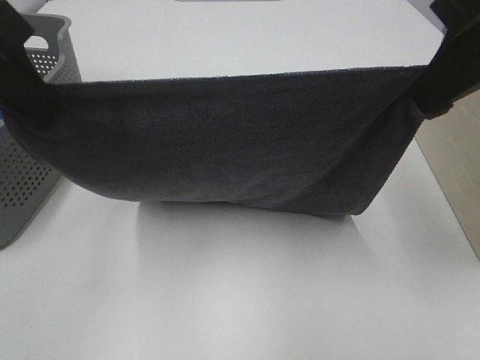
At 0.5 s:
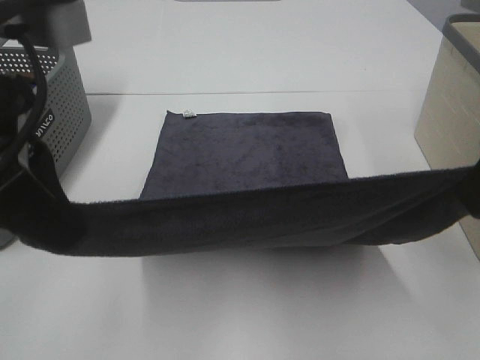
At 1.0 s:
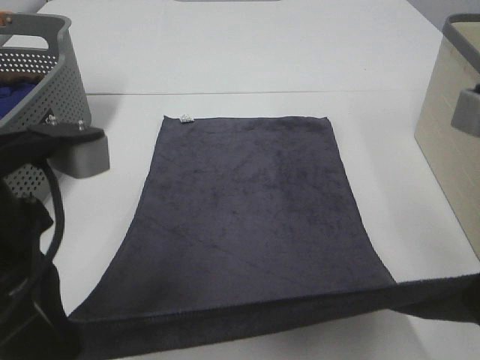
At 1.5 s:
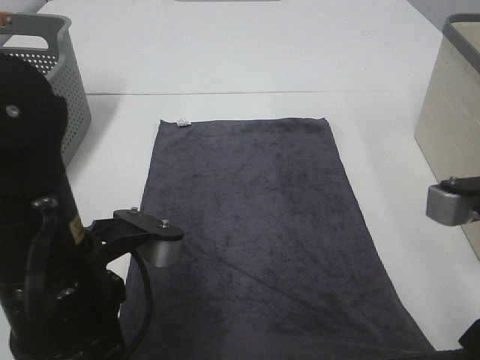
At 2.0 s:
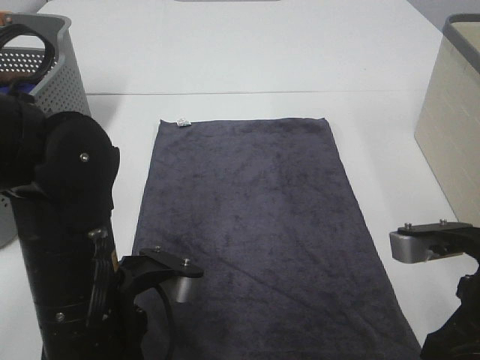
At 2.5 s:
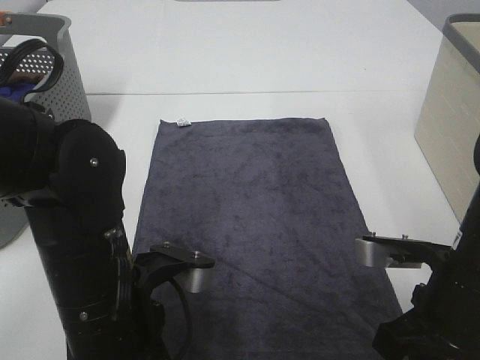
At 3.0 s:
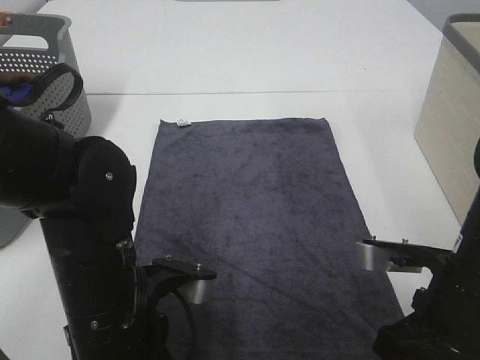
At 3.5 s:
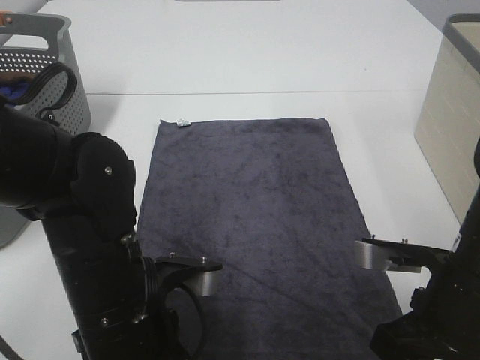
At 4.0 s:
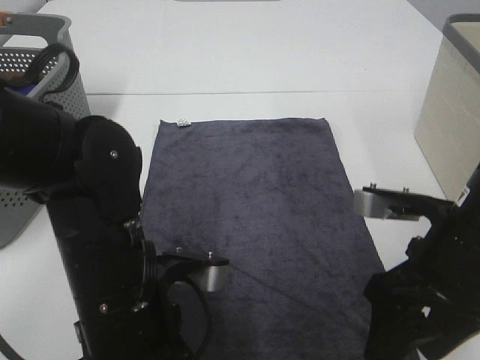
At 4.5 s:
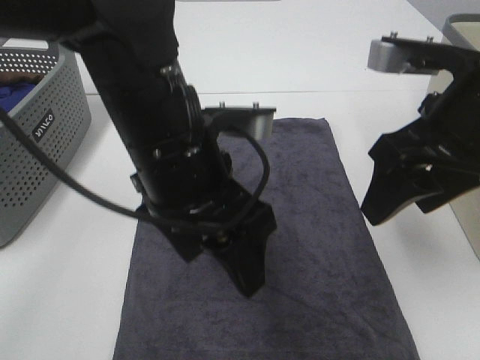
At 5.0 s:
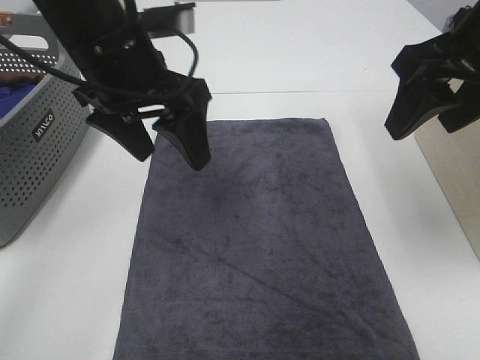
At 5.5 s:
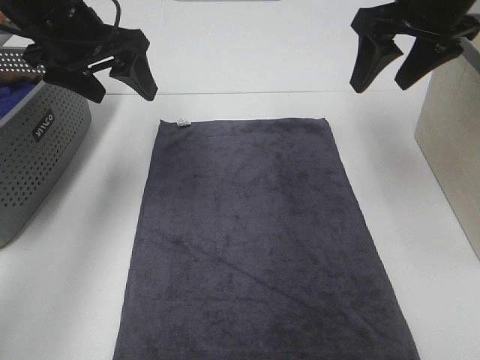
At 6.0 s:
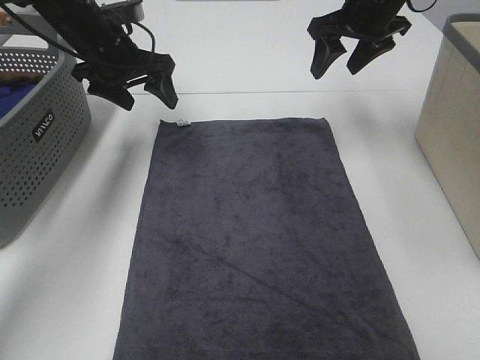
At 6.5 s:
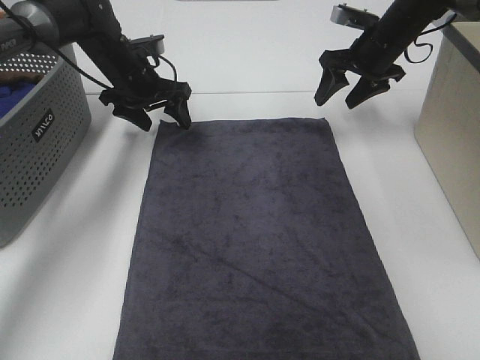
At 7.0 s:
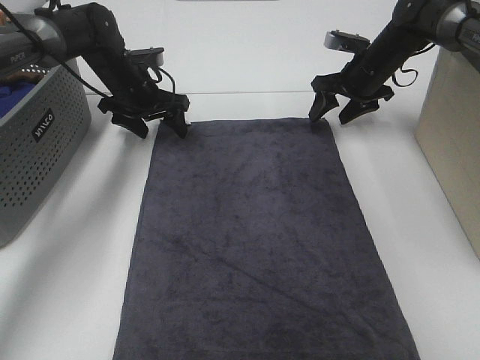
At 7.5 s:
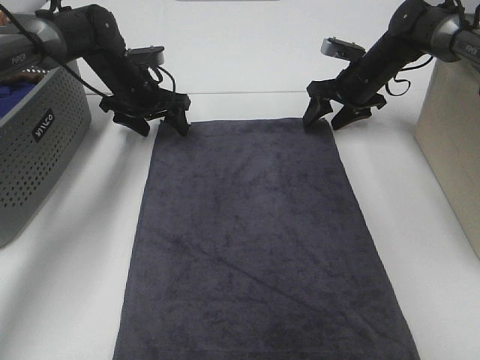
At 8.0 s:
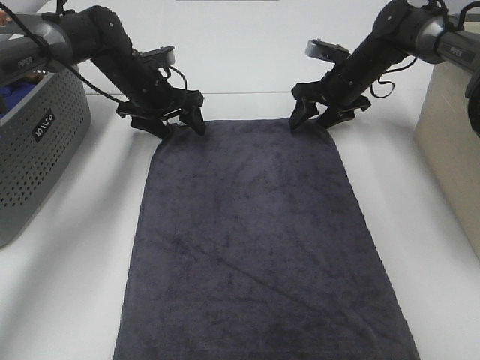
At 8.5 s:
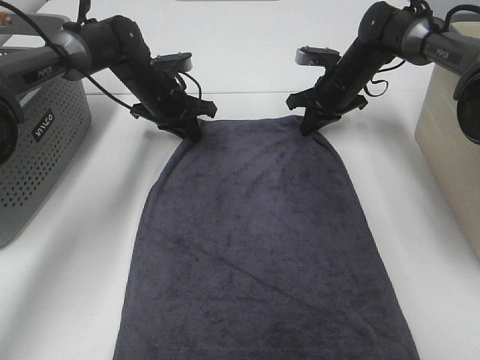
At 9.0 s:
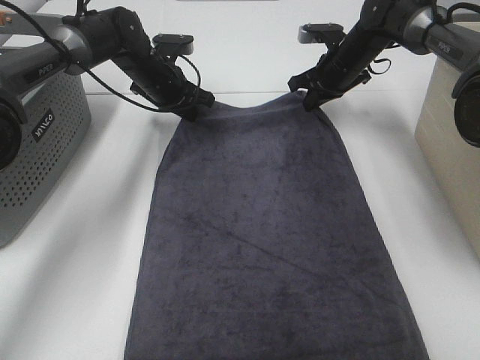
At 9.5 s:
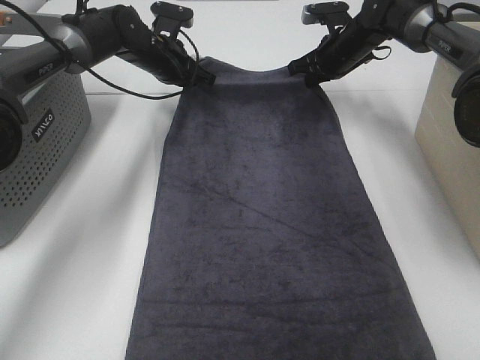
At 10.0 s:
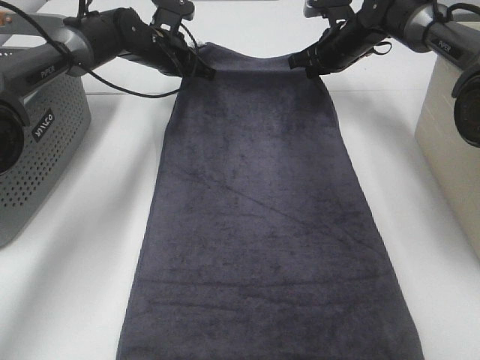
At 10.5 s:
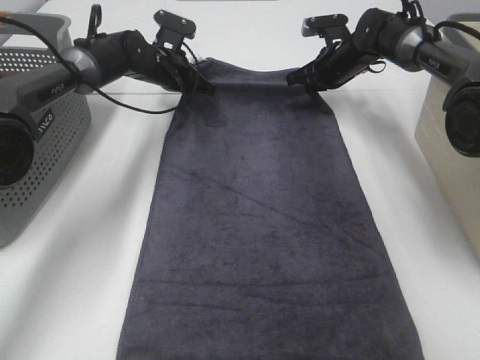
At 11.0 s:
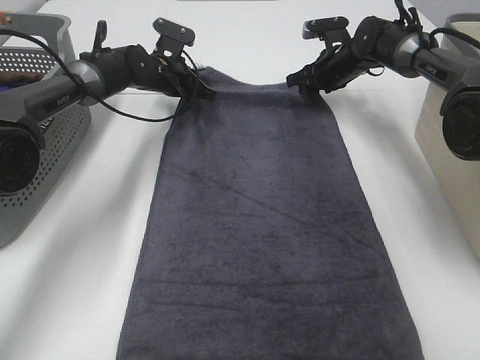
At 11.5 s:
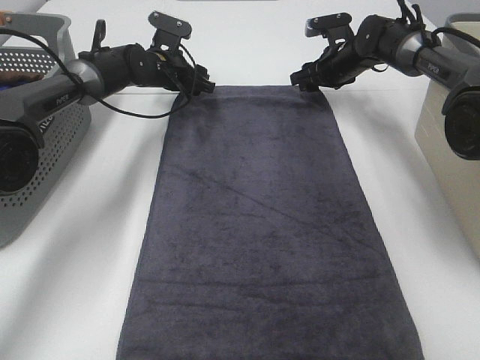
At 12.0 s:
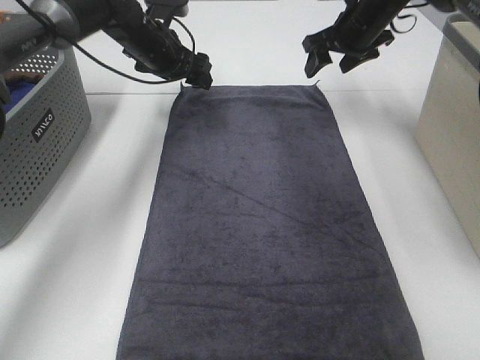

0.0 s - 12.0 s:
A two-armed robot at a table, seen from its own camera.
Task of the whole recording: Remove the towel and place it.
Step, 0.0 s - 5.5 s: Left hand:adjust the gray towel.
Step, 0.0 s - 5.5 s: Right hand:adjust the gray towel.
0.0 s - 2.0 s: The right gripper heads downward, covering about 20 cm; the left gripper travels downward and to the right by about 20 cm.
2.0 s - 4.0 s: The left gripper opens its fingers, while the right gripper opens up.
4.0 s - 6.0 s: Both grippers travel together forward, some 30 cm.
6.0 s - 8.0 s: The left gripper moves downward, approximately 10 cm; the right gripper travels downward by approximately 15 cm.
8.0 s - 10.0 s: The right gripper shifts by about 5 cm, and closes up, while the left gripper moves approximately 5 cm, and closes.
10.0 s - 12.0 s: The left gripper moves some 5 cm, and opens up, while the right gripper moves upward, approximately 5 cm, and opens up.

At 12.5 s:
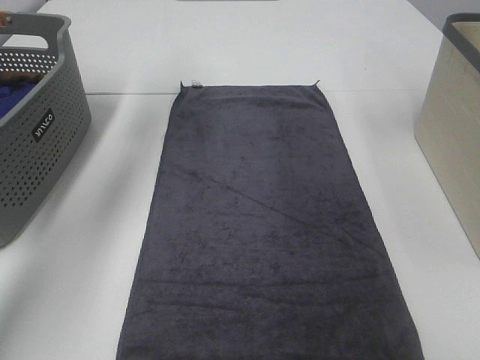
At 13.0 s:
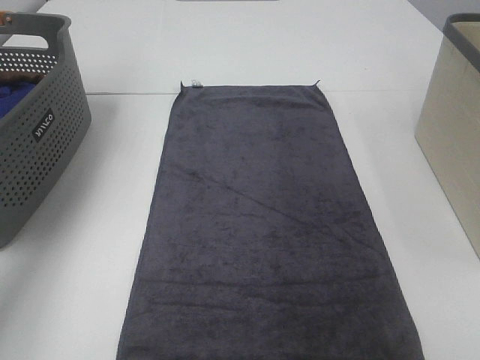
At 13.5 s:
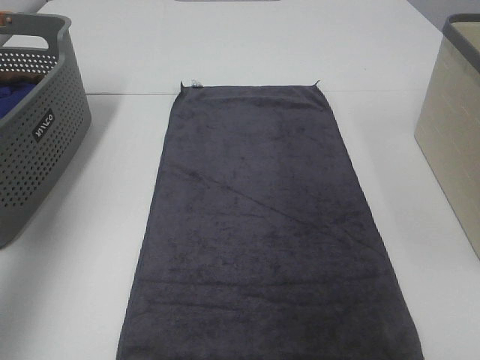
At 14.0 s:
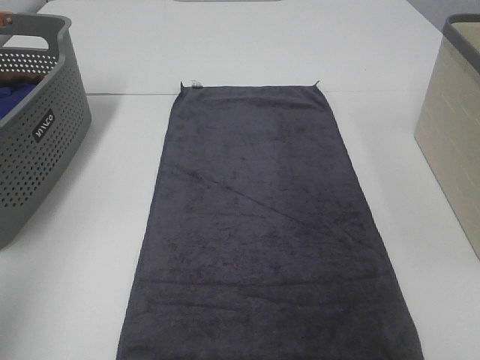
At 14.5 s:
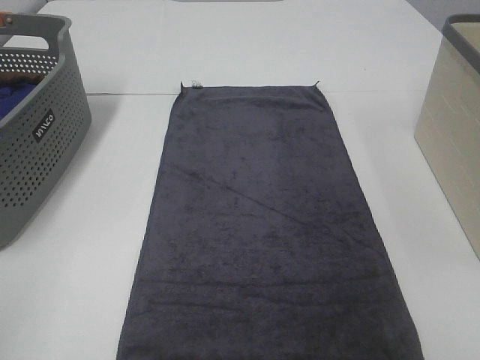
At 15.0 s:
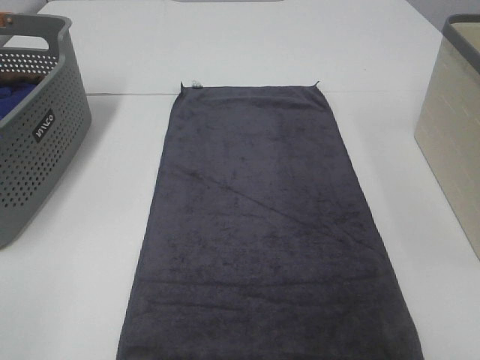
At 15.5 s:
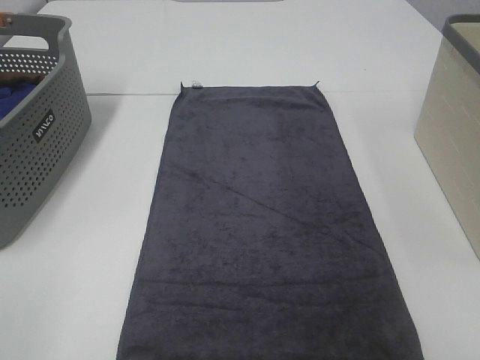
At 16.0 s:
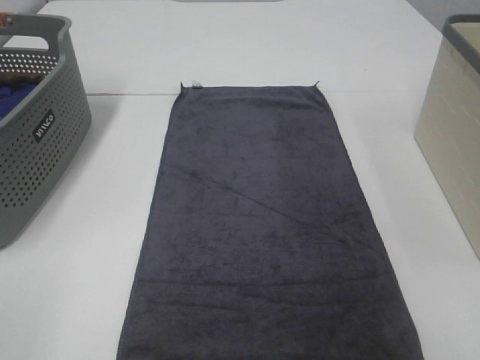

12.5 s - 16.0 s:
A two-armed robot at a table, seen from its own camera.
Task of the whole recording: Remove the towel and place it.
12.5 s - 14.5 s: The left gripper shifts some 50 cm backward.

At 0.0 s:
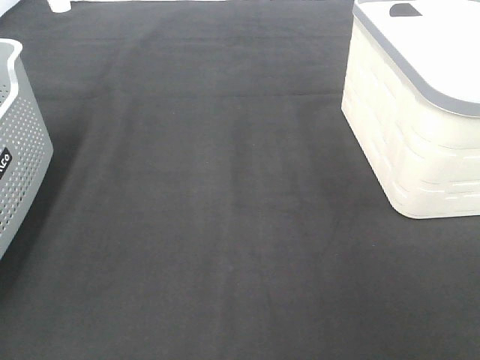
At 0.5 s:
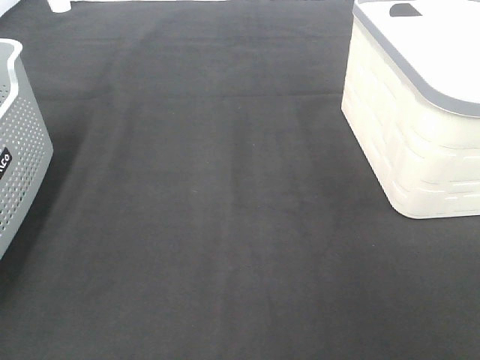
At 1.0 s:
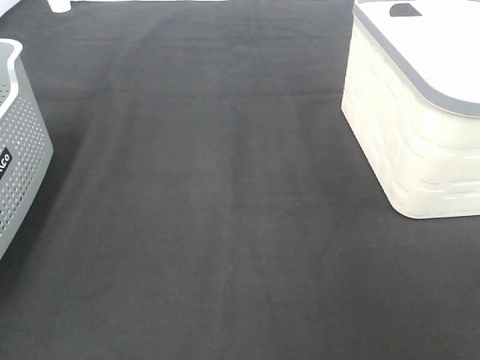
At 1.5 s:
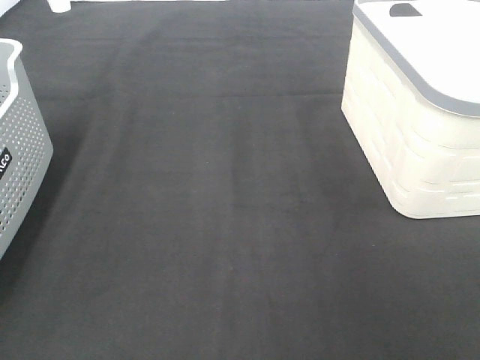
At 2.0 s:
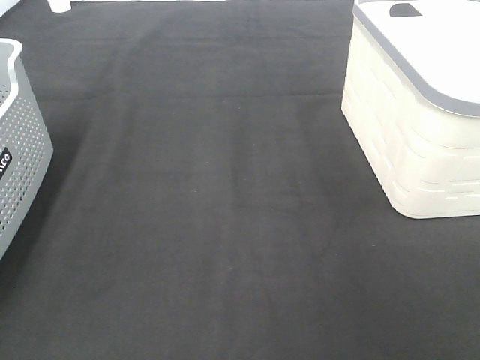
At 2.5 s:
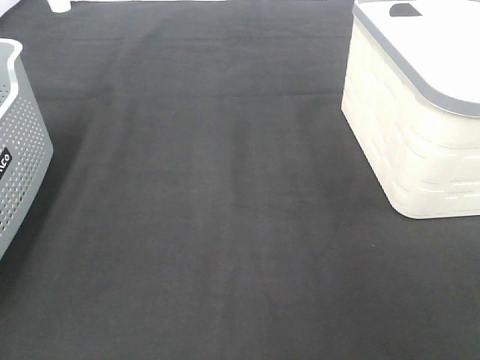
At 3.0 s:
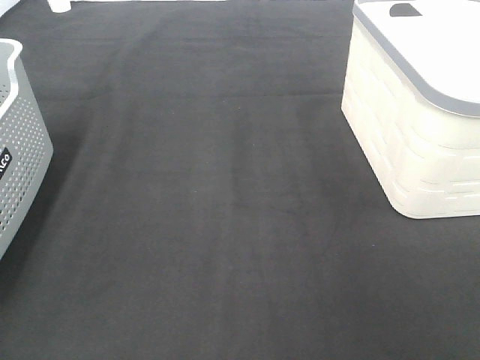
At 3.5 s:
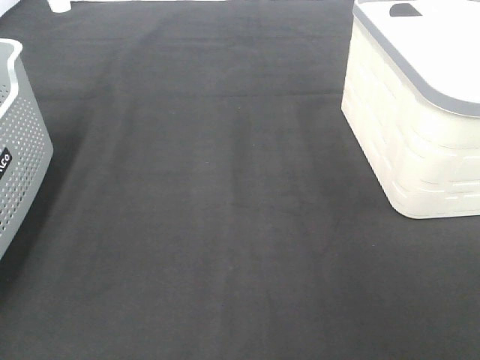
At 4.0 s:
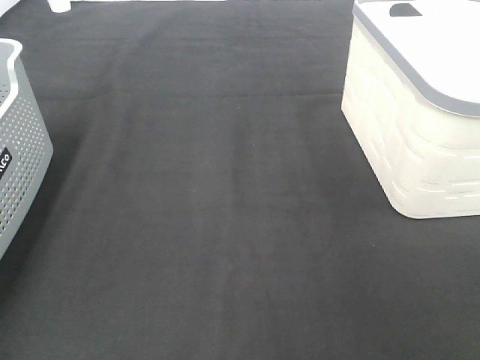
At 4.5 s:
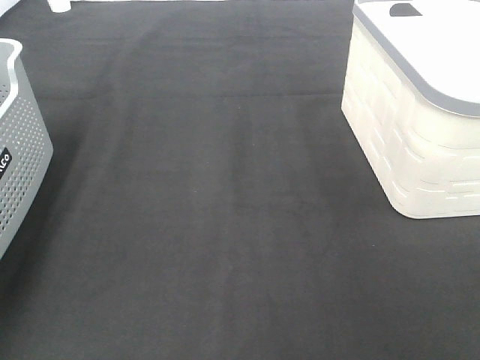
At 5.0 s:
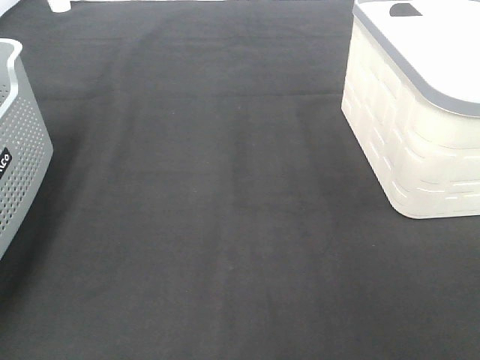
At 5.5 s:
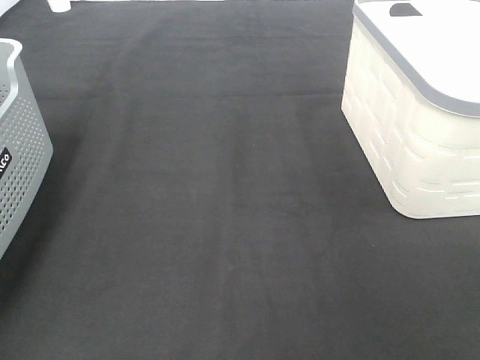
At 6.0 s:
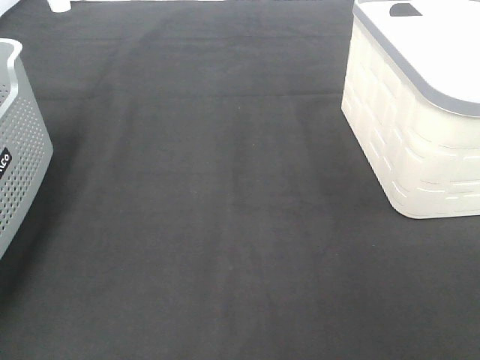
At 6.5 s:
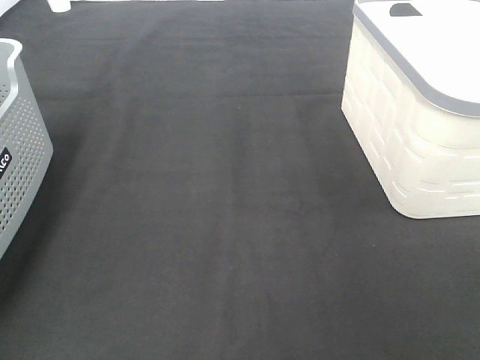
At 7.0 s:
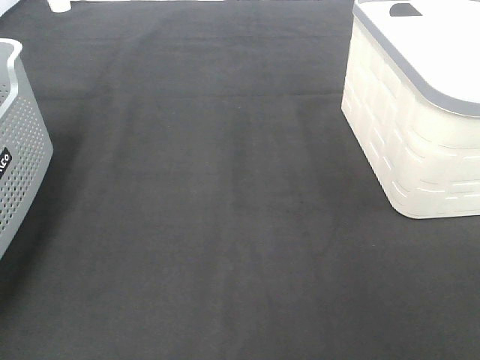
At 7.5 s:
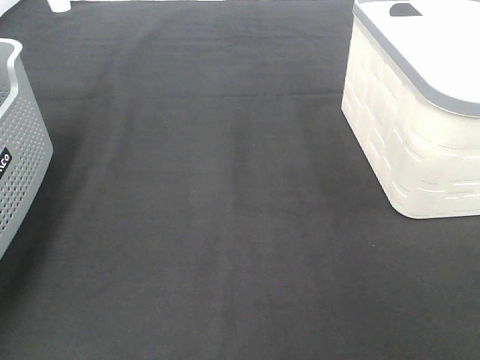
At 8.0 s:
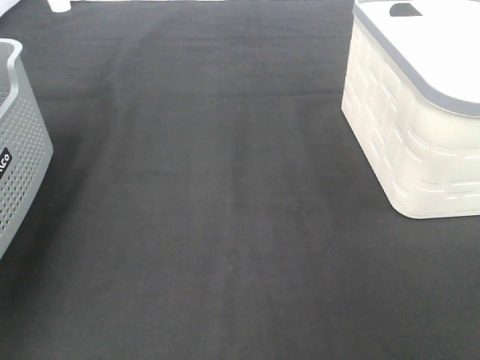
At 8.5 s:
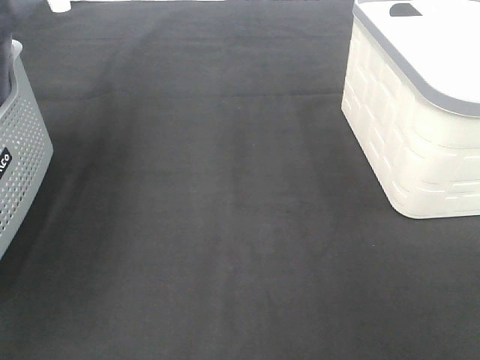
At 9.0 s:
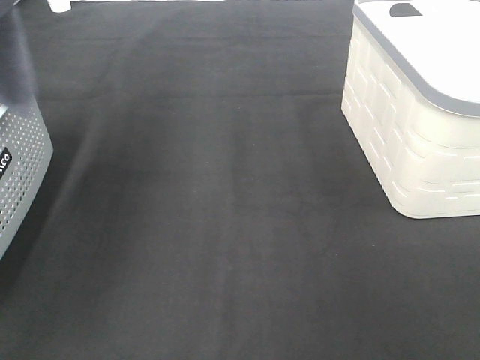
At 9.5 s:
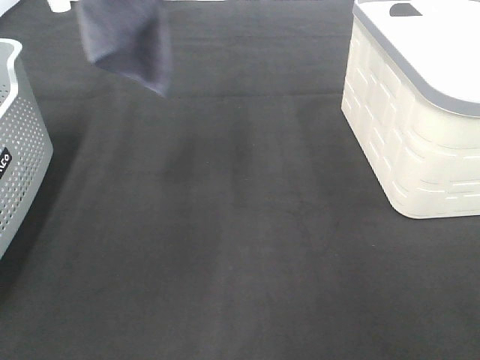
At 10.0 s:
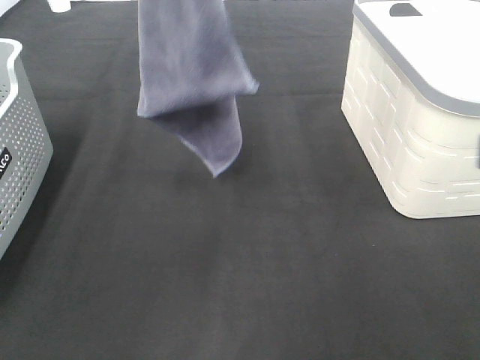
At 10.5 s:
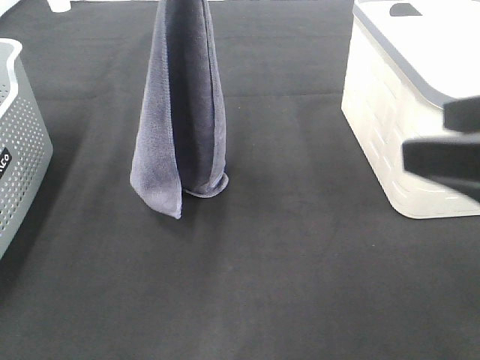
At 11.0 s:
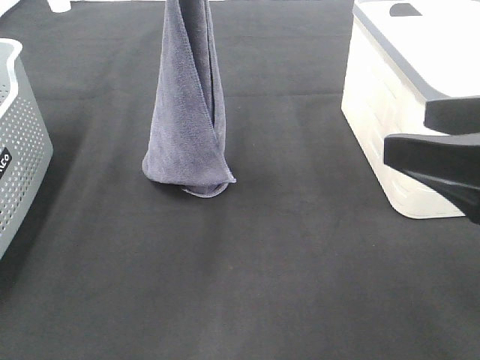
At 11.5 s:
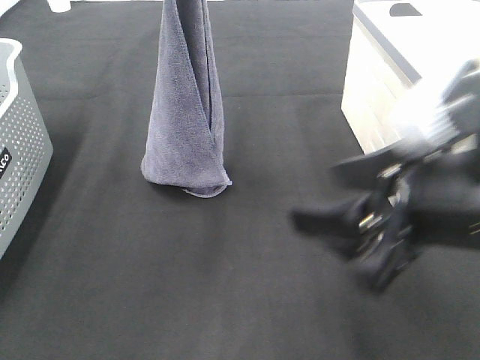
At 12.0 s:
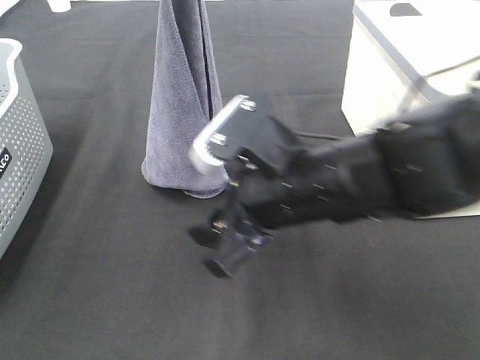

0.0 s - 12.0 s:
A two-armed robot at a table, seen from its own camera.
Task of the whole recording: Remove the towel and place it.
0.0 s - 2.0 s: Both grippers stay put.
8.0 s - 10.0 s: The left gripper is displaced to the right by approximately 20 cm. Meanwhile the right gripper is displaced forward by roughly 10 cm.
10.0 s - 12.0 s: The right gripper shifts some 25 cm to the left, downward and forward, while the left gripper heads downward, covering about 10 cm.
